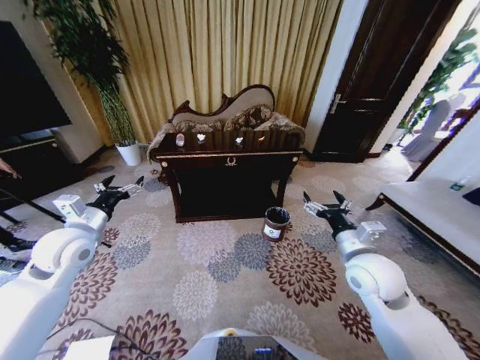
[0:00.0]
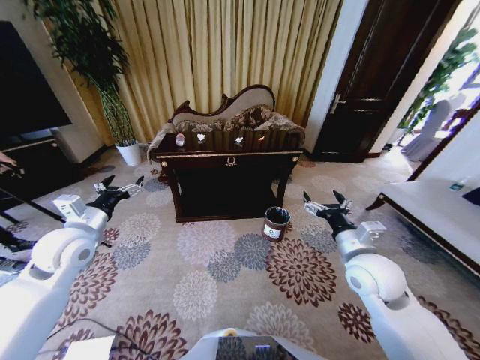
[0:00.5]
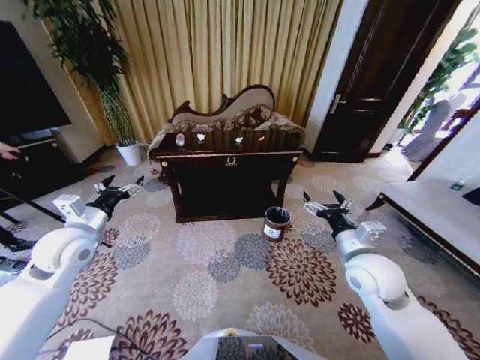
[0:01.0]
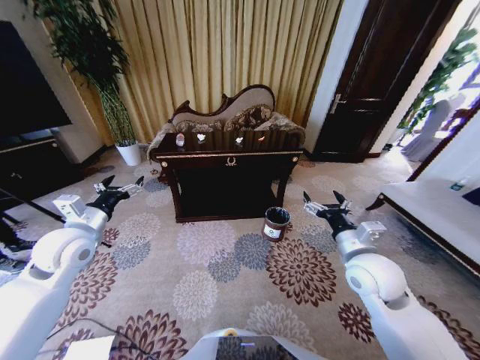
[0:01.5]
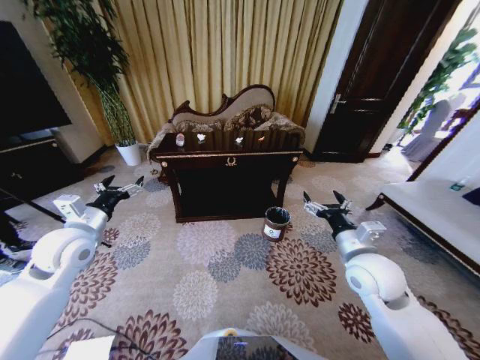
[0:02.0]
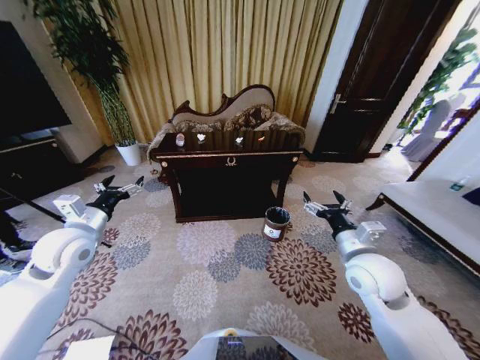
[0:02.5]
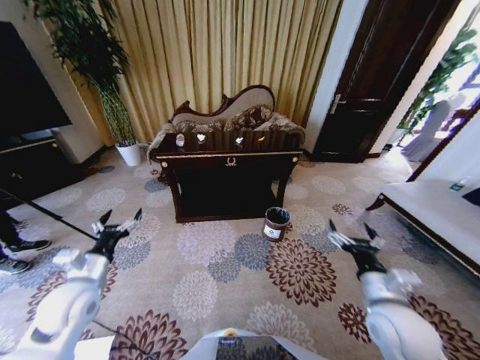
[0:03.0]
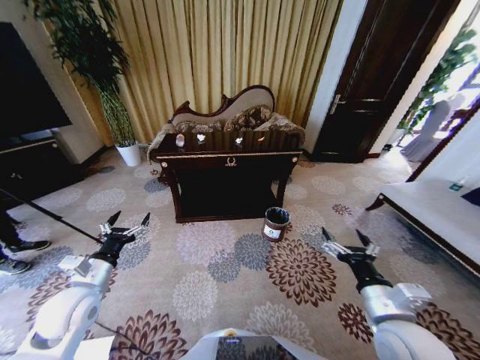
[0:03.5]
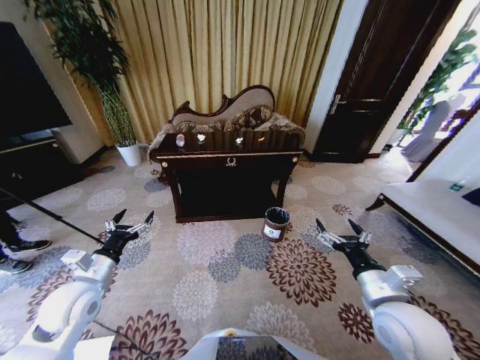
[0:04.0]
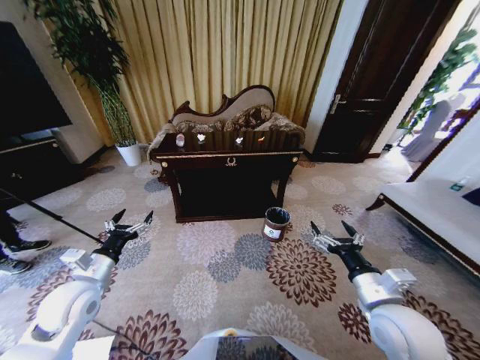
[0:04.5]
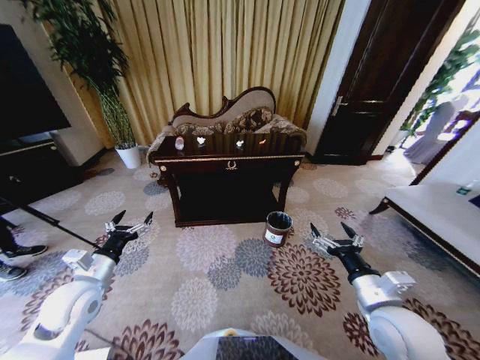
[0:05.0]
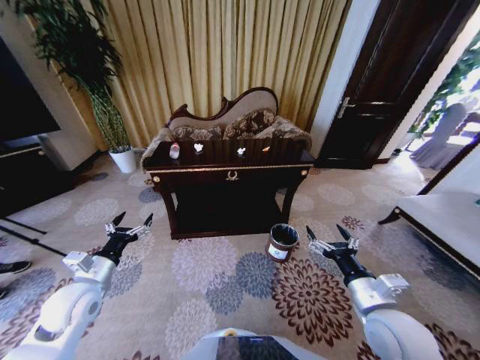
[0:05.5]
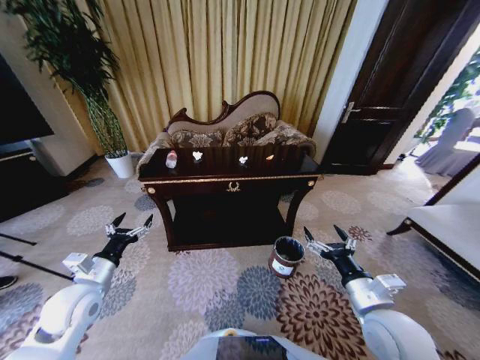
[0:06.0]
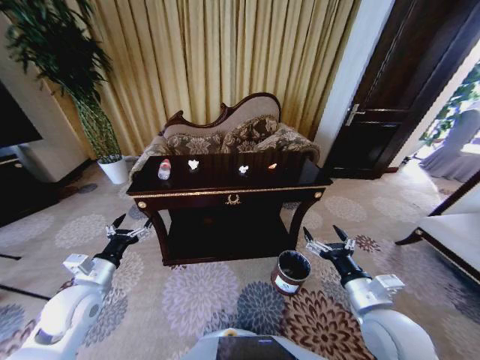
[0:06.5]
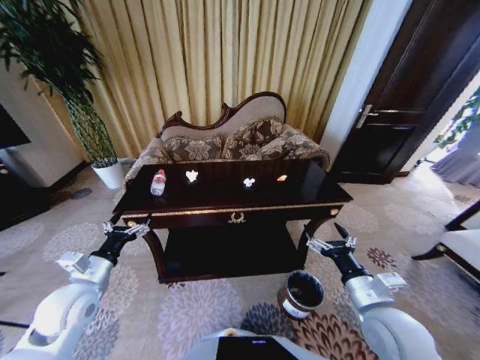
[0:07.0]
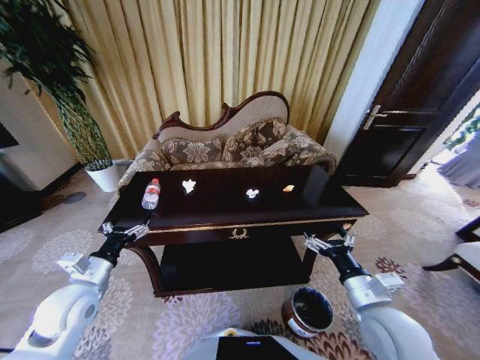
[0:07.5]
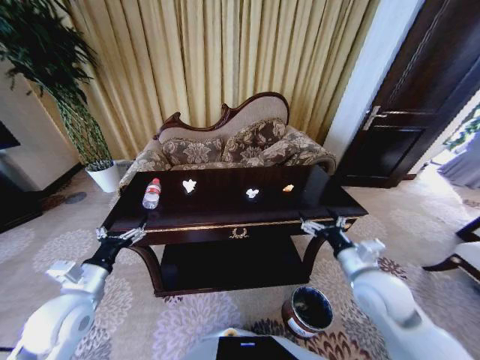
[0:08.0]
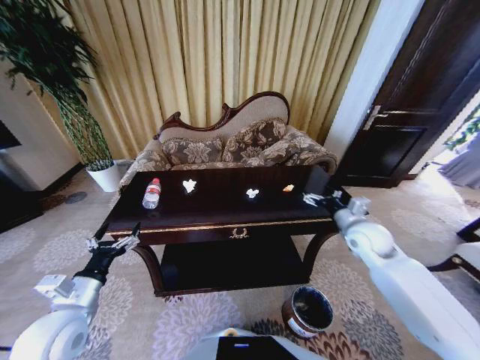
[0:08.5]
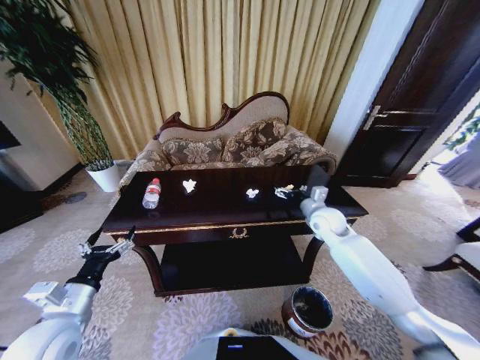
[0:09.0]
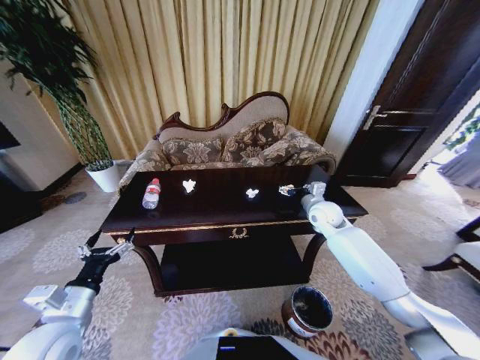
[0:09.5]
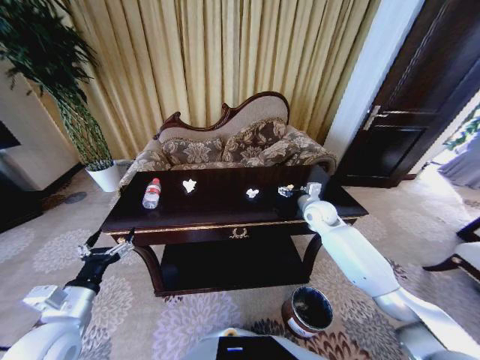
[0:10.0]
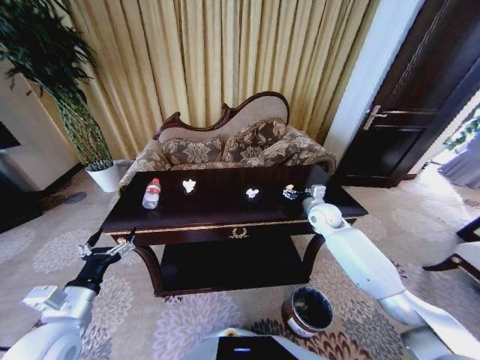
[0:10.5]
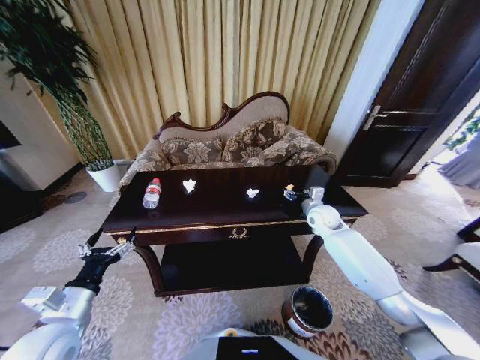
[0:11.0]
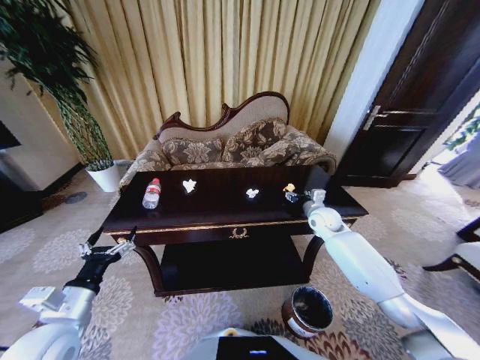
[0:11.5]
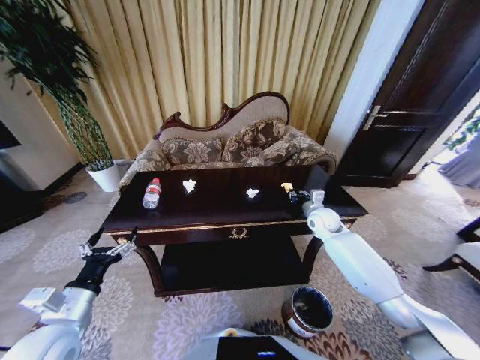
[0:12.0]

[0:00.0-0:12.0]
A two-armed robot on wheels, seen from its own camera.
Task of the whole recording: Move to the front of the table and place the trash on the table into the trash bin.
0:02.0 to 0:04.0: The right gripper shifts some 10 cm backward. Meanwhile the left gripper heads downward and backward, covering some 10 cm.
0:06.0 to 0:08.0: The right gripper is displaced forward by approximately 10 cm.
0:08.0 to 0:10.0: The right gripper shifts approximately 25 cm forward.
0:10.0 to 0:12.0: The right gripper closes up.

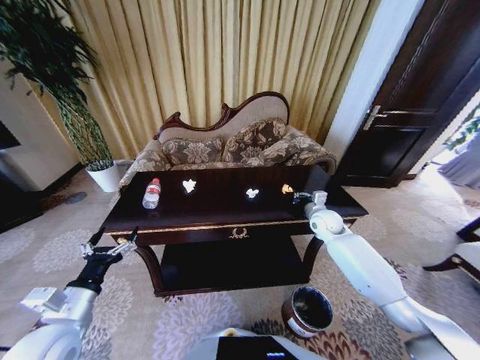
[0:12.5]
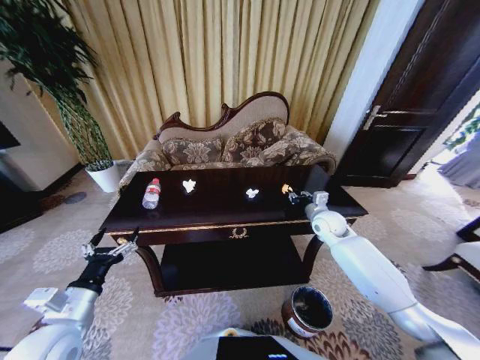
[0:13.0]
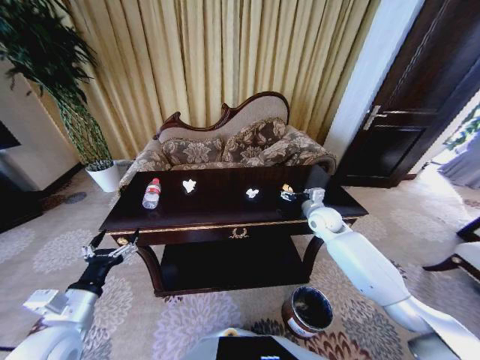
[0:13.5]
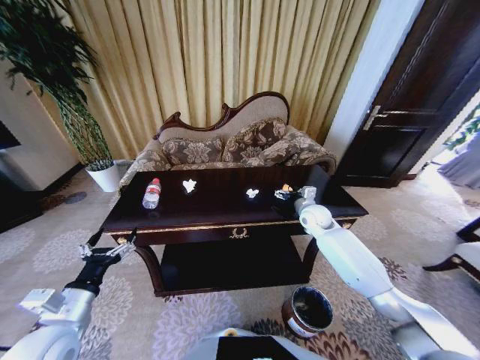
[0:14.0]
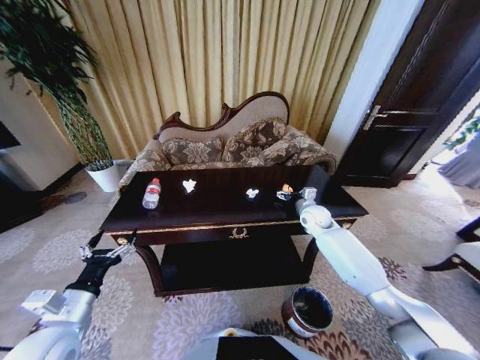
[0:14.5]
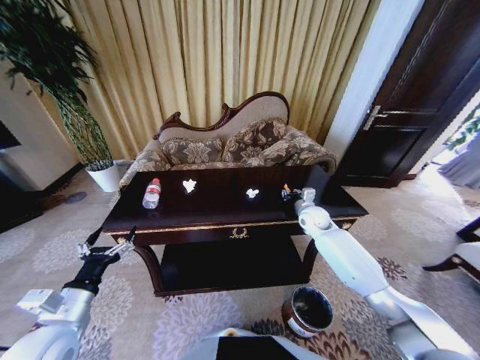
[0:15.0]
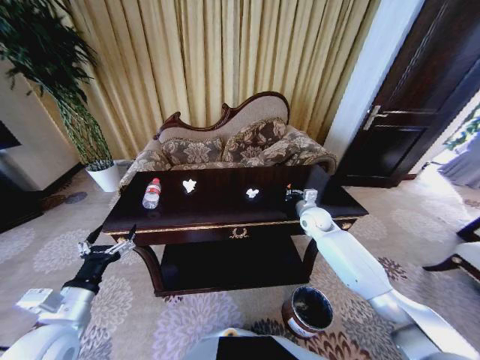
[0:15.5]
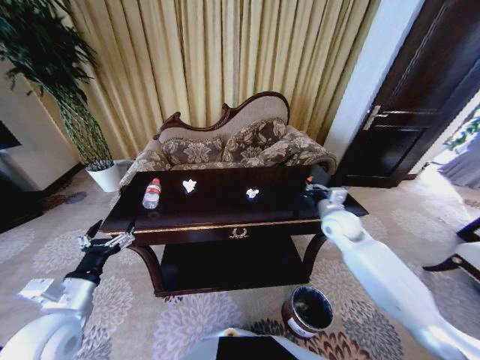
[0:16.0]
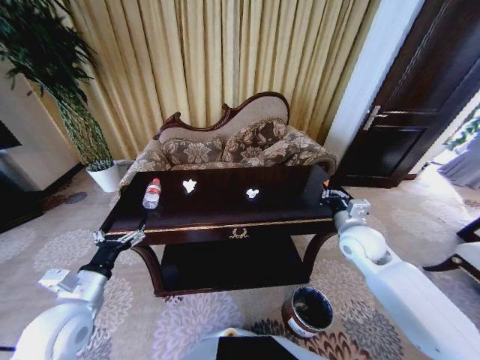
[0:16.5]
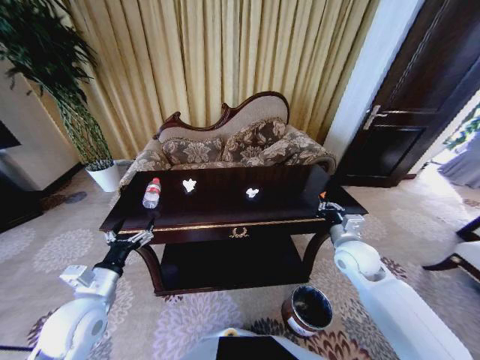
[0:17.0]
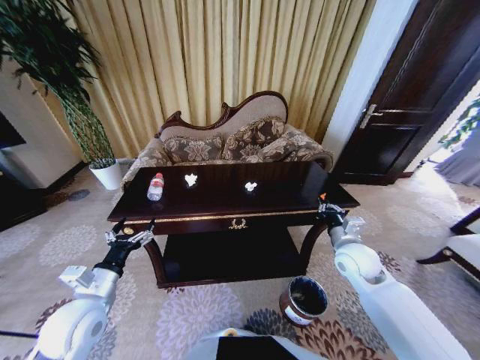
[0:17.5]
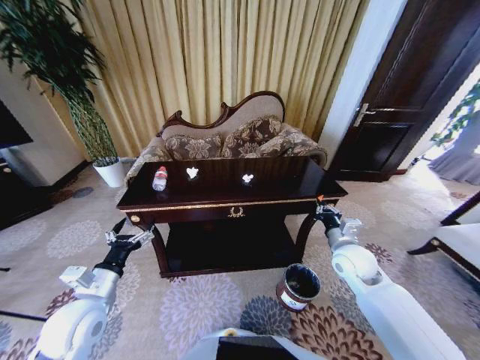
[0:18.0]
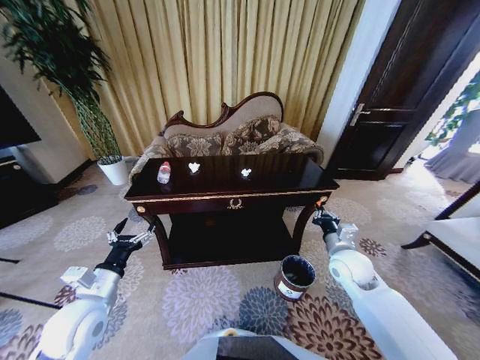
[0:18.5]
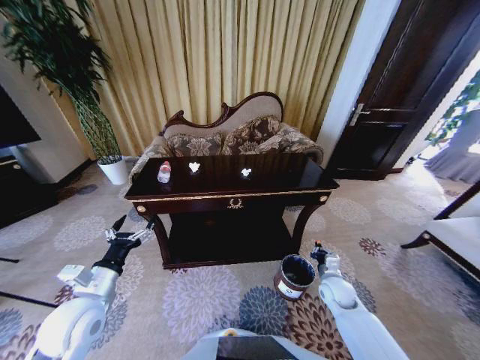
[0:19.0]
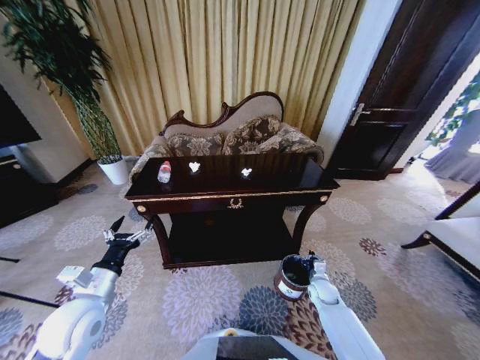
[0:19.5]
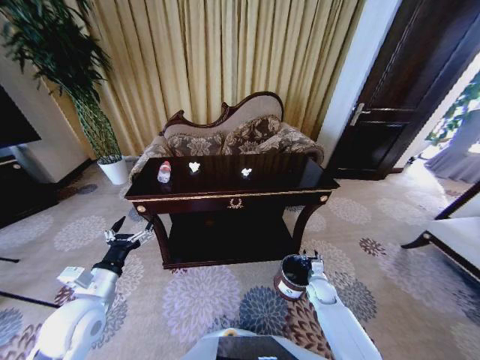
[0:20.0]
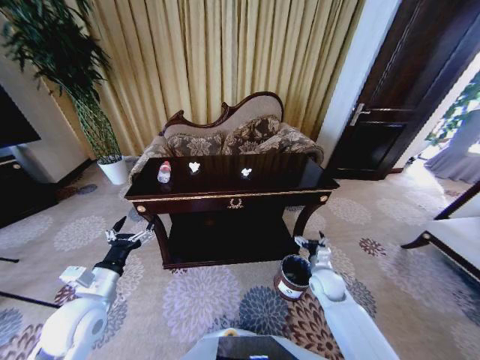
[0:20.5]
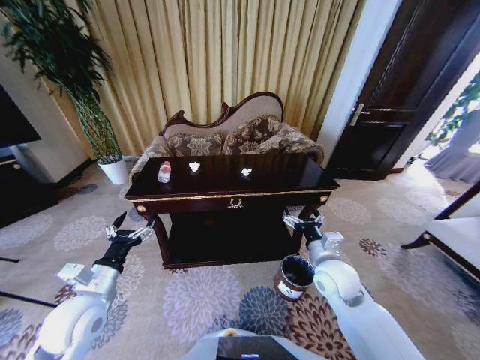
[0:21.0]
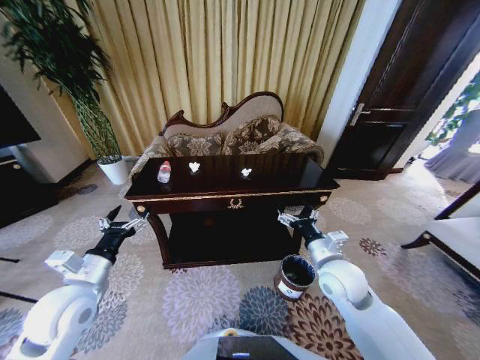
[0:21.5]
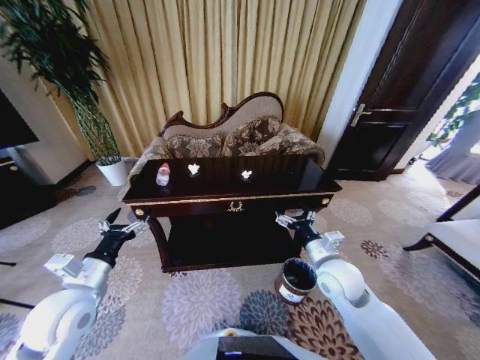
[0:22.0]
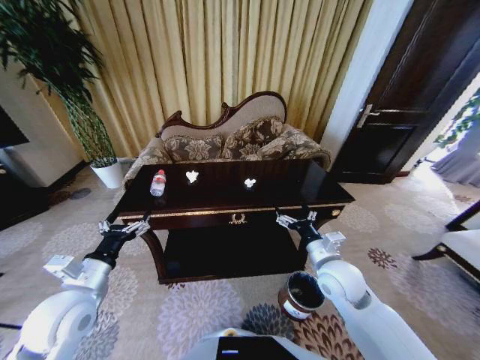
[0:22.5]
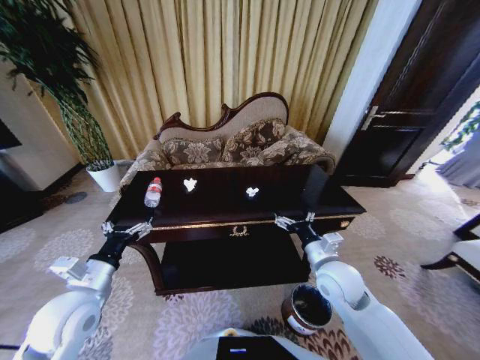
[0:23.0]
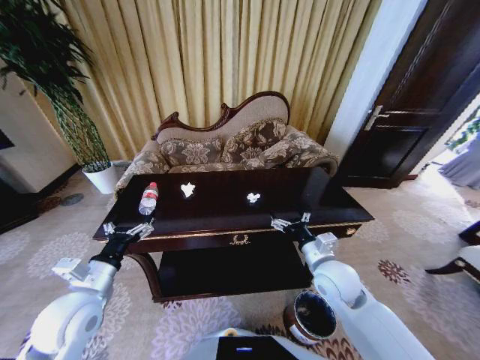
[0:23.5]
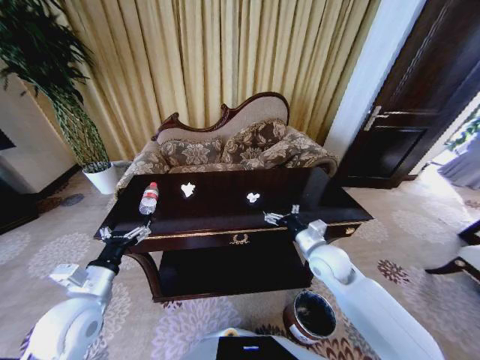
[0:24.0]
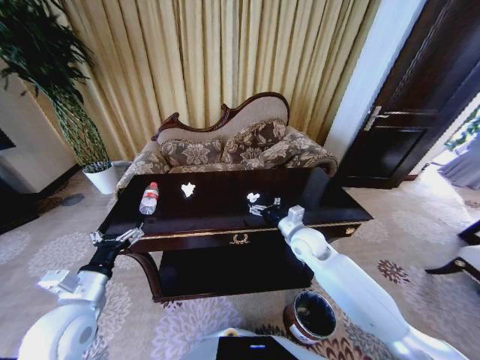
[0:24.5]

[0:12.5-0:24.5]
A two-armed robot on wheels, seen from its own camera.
Task of the whole recording: Move to the front of the table and place the trash on the table into the trash bin.
0:12.5 to 0:14.5: The right gripper opens.
0:14.5 to 0:16.5: The right gripper moves backward and upward, roughly 15 cm, and closes up.
0:16.5 to 0:18.5: The right gripper goes roughly 5 cm downward.
0:18.5 to 0:20.5: The right gripper heads downward, covering roughly 15 cm, and opens.
0:20.5 to 0:22.5: The right gripper shifts some 15 cm upward.
0:22.5 to 0:24.5: The right gripper shifts approximately 10 cm forward.

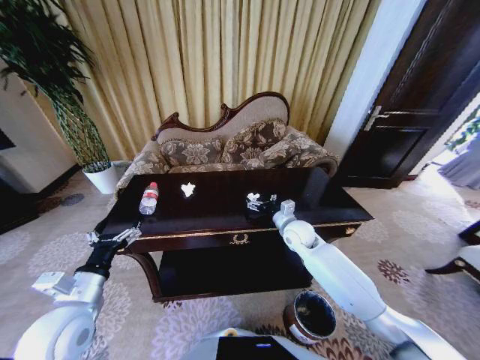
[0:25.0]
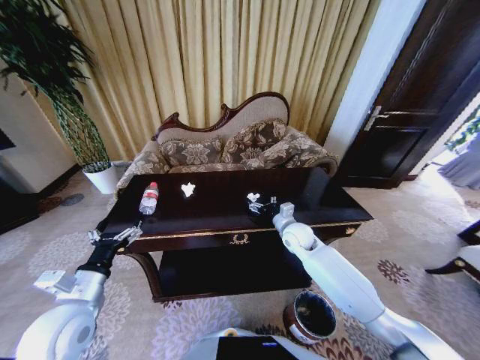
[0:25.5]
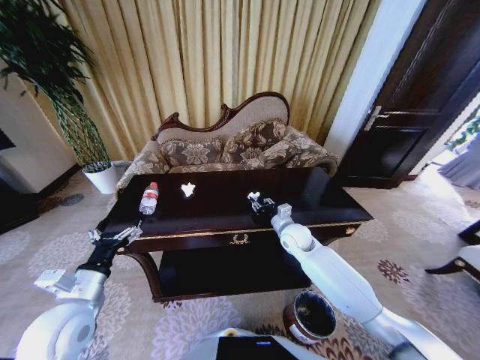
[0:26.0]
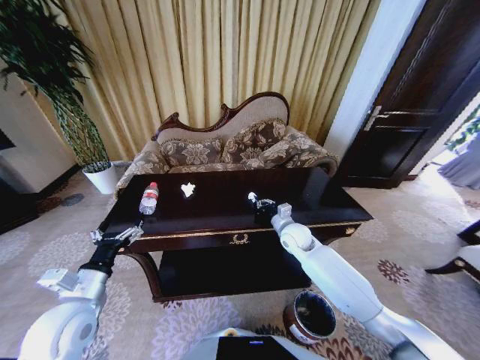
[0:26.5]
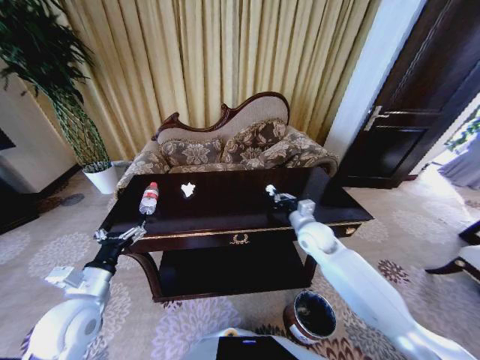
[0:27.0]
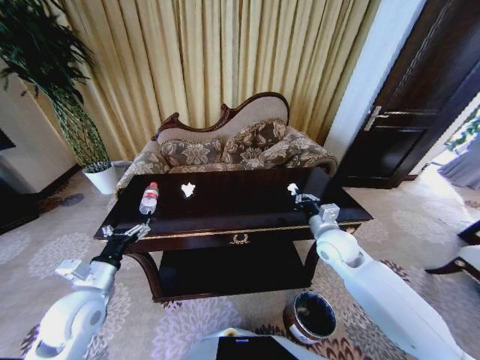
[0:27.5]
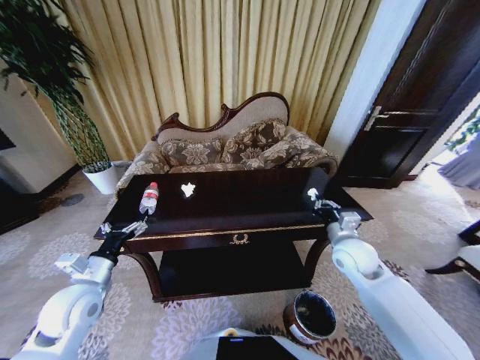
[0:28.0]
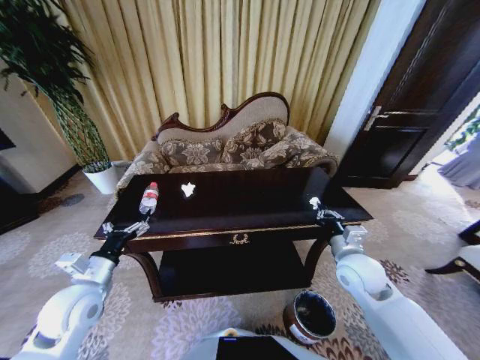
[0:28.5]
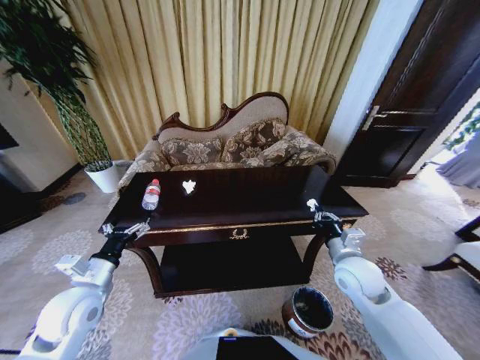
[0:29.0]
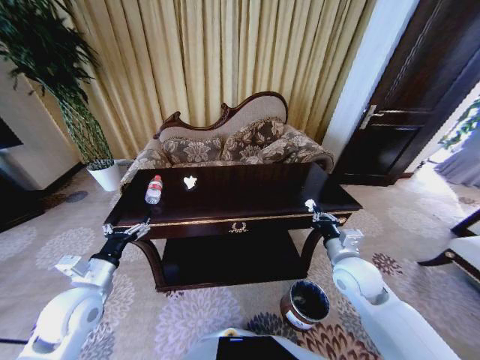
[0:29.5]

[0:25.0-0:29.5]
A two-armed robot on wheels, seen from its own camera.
Task of the whole recording: Move to the front of the table and place the trash on the table into the trash bin.
0:25.0 to 0:27.0: The right gripper changes place by about 5 cm, and closes up.
0:27.0 to 0:29.5: The right gripper travels backward by about 10 cm.
